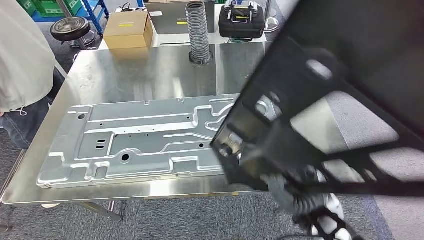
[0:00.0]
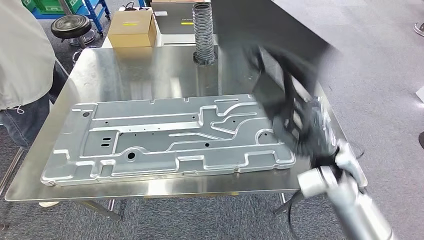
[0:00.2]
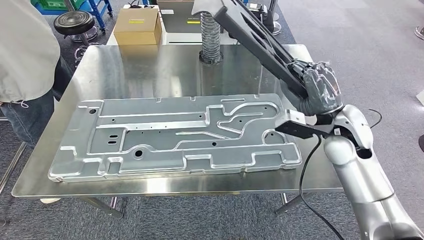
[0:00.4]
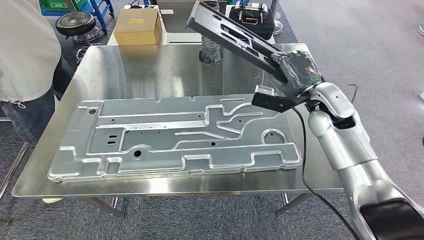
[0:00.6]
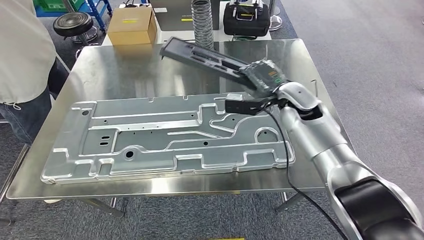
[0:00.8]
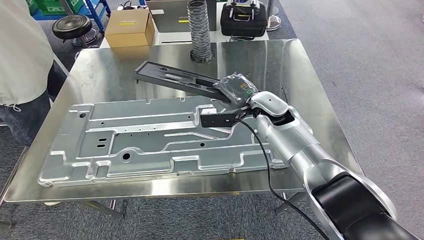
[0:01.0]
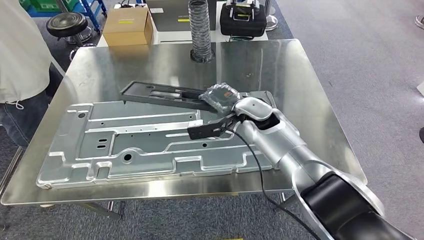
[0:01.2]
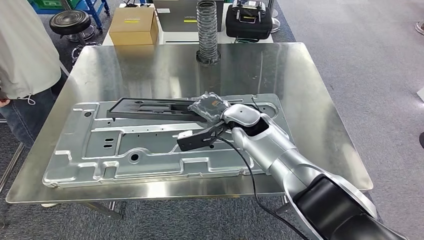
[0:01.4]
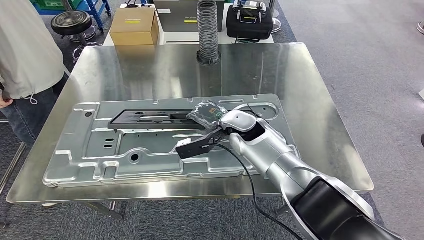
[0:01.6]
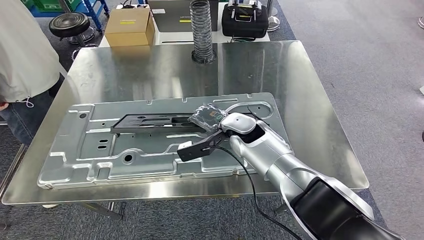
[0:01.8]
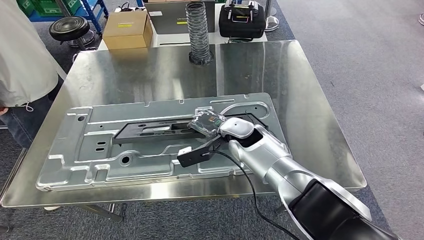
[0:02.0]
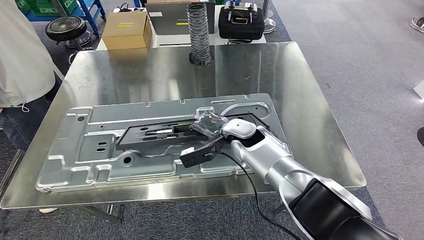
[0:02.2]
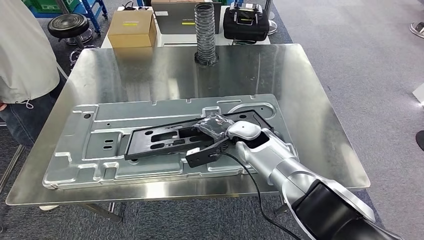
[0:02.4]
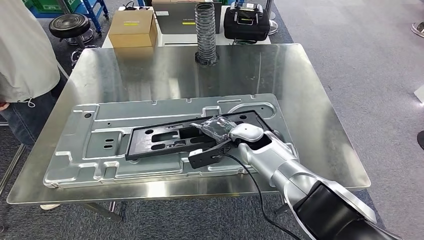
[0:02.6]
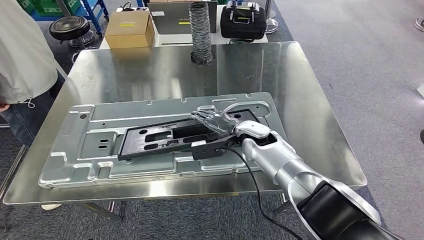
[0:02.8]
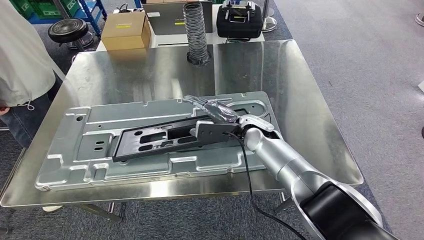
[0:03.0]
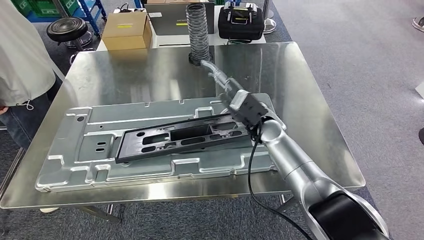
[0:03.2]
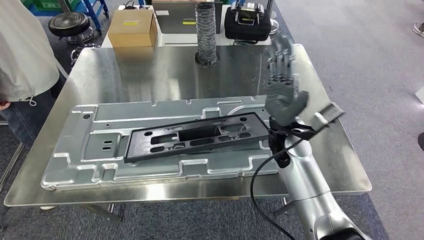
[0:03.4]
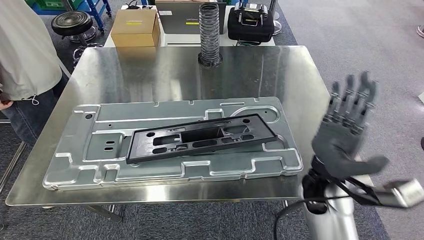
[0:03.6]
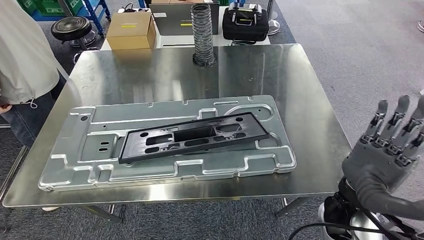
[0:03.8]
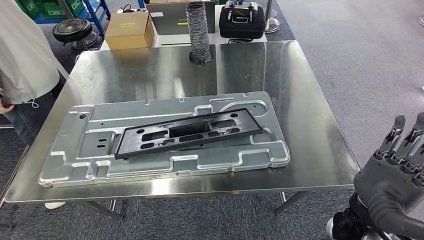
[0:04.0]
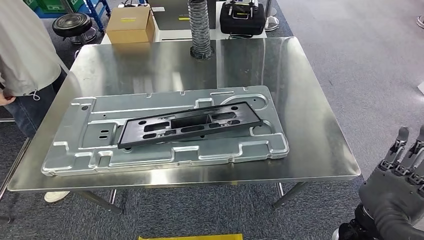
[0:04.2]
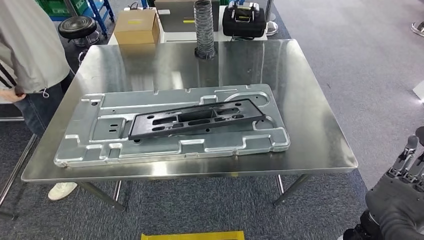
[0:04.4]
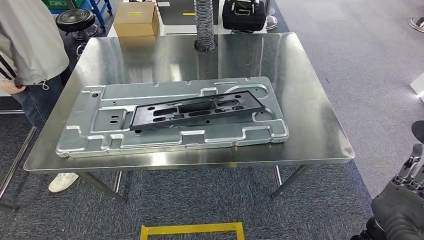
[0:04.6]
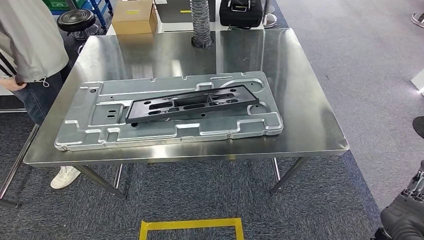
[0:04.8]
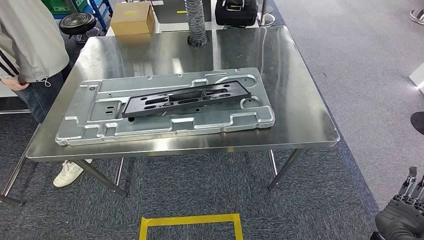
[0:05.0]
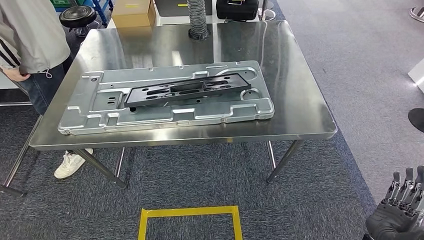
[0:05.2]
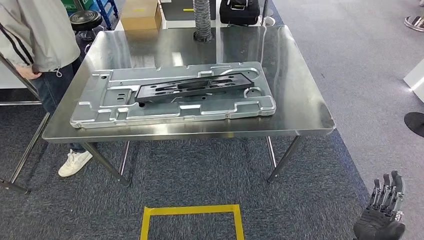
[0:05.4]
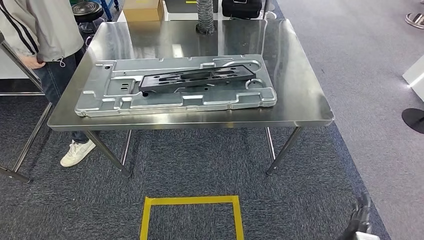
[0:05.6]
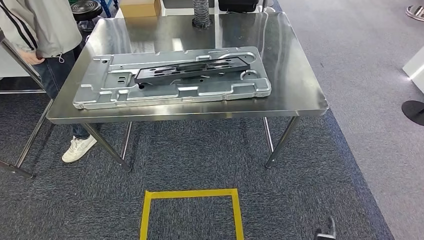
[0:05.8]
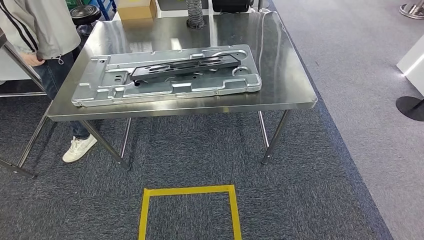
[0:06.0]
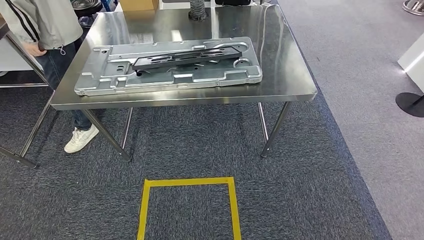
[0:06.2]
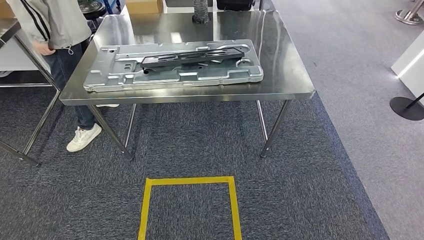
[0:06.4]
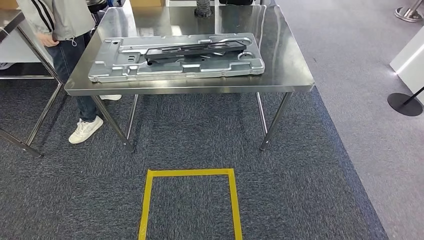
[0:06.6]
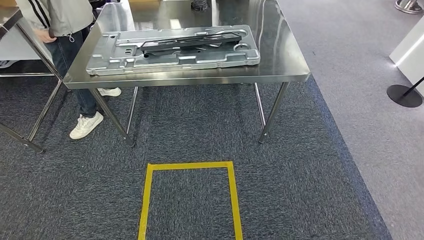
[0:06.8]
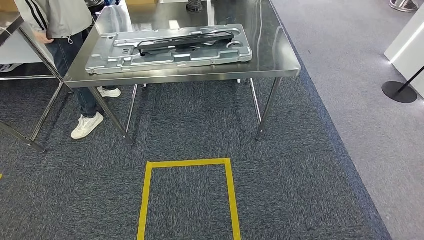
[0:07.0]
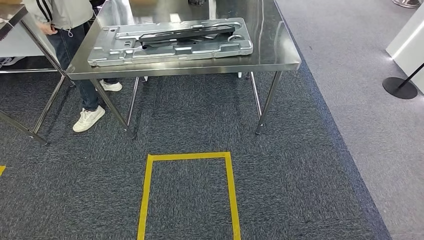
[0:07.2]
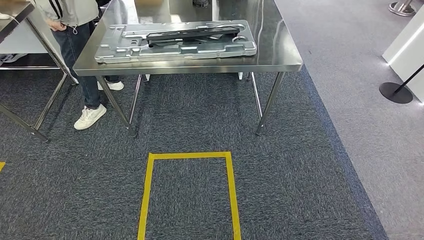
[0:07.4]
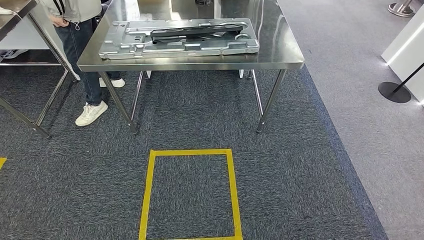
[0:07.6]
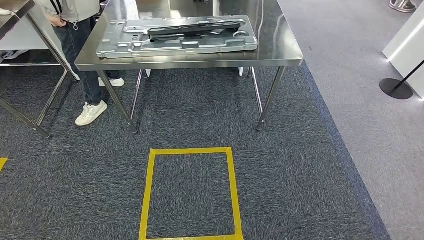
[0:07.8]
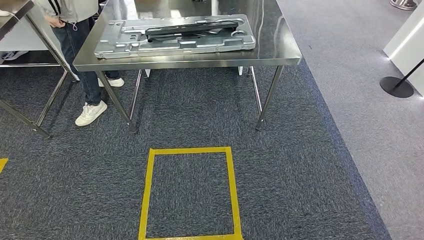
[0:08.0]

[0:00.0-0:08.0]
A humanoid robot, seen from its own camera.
Step, 0:00.0 to 0:03.0: Insert the small parts into the corresponding holes on the workbench.
Step, 0:03.2 to 0:08.0: Move to the initial position of the workbench.
